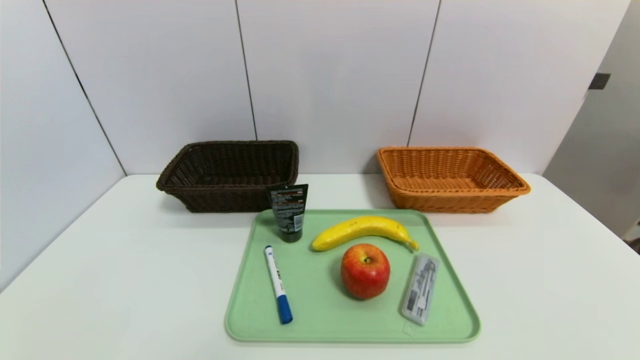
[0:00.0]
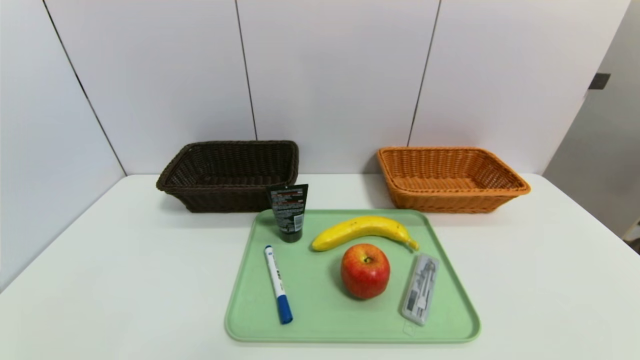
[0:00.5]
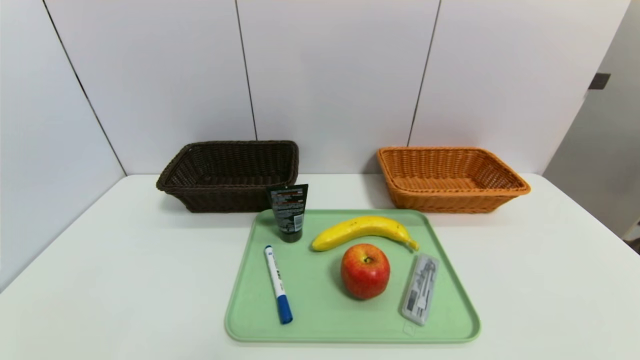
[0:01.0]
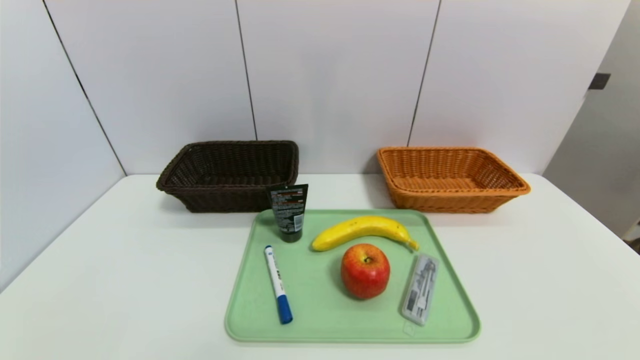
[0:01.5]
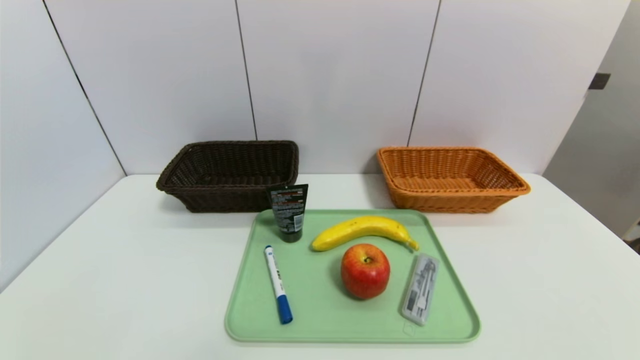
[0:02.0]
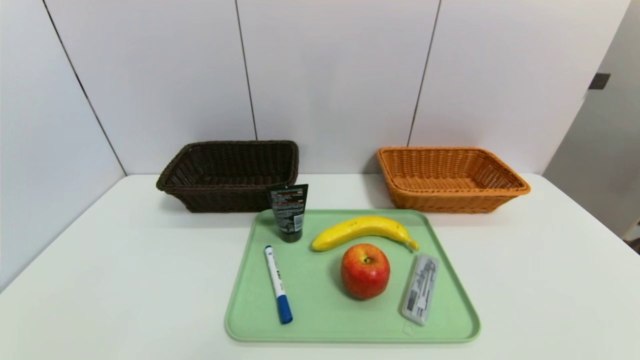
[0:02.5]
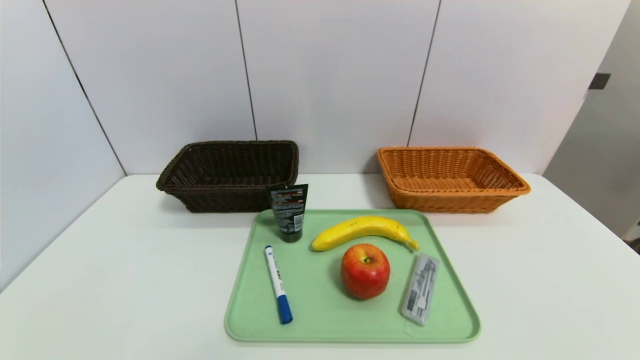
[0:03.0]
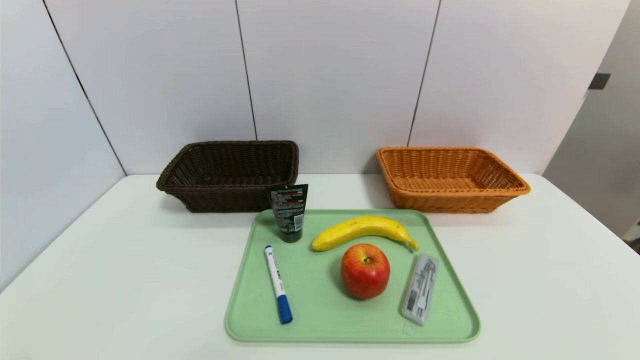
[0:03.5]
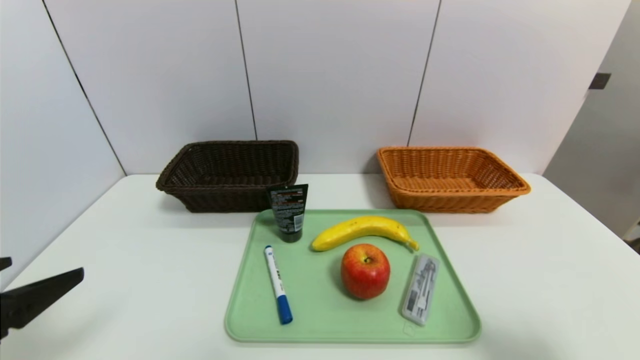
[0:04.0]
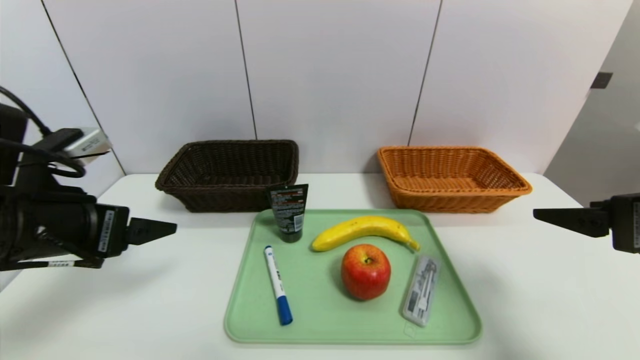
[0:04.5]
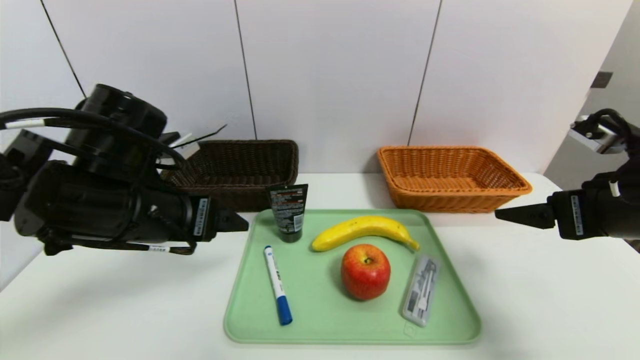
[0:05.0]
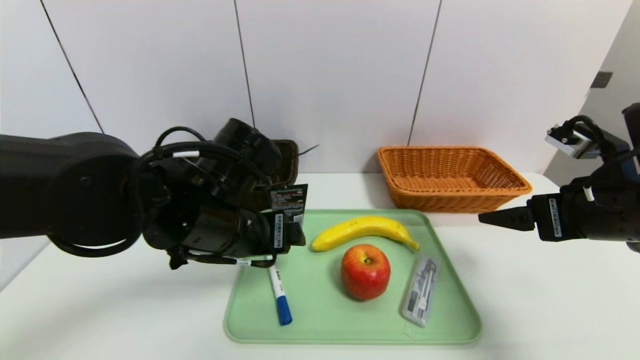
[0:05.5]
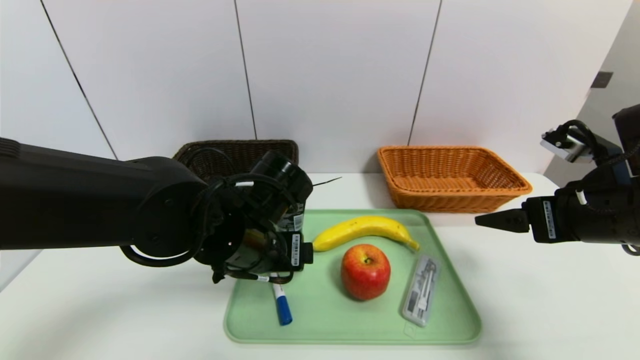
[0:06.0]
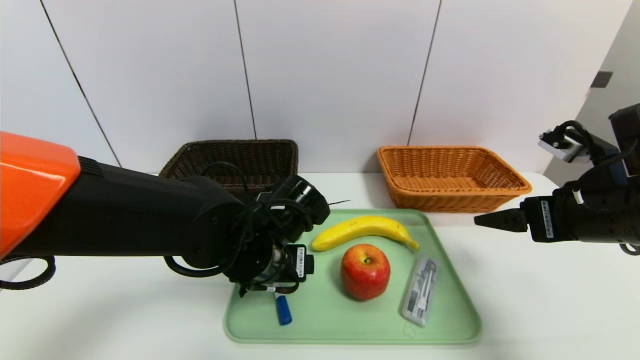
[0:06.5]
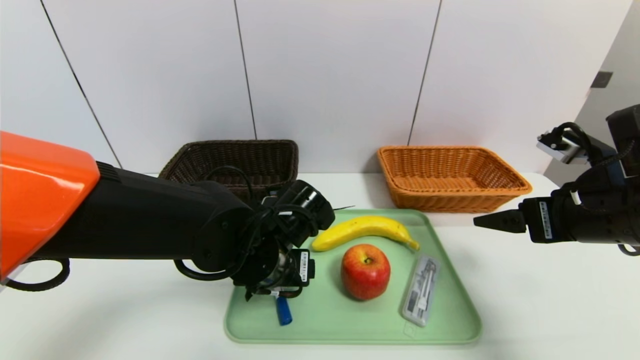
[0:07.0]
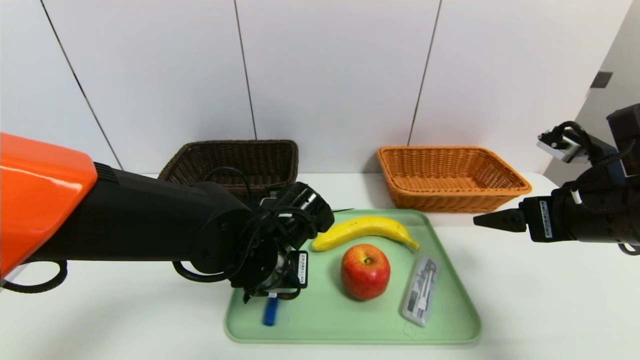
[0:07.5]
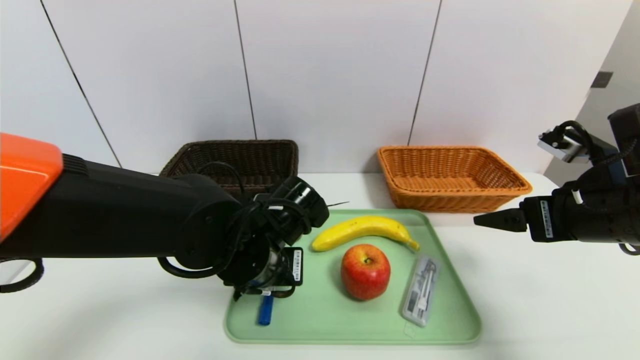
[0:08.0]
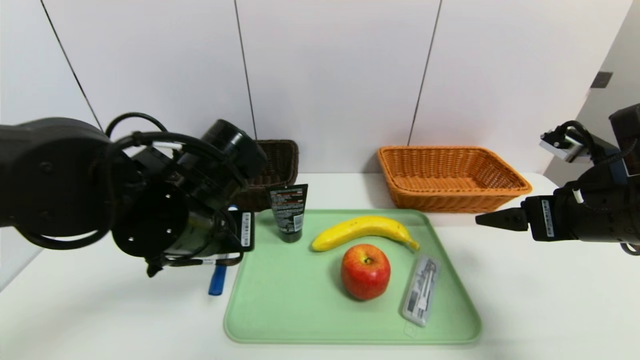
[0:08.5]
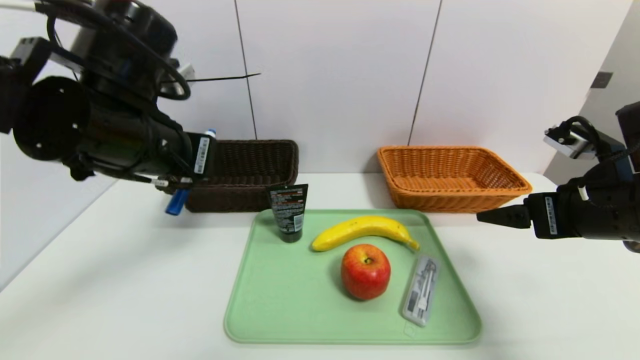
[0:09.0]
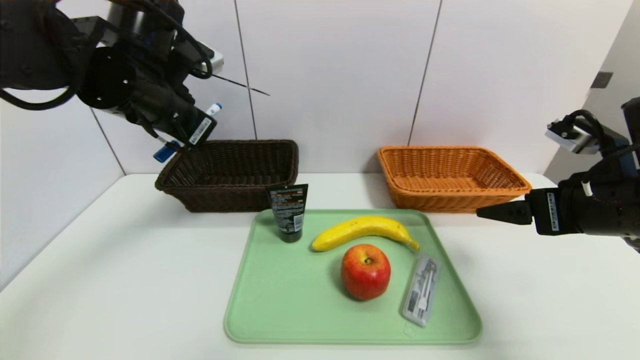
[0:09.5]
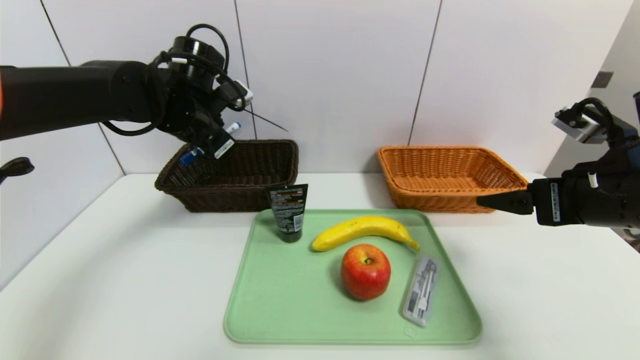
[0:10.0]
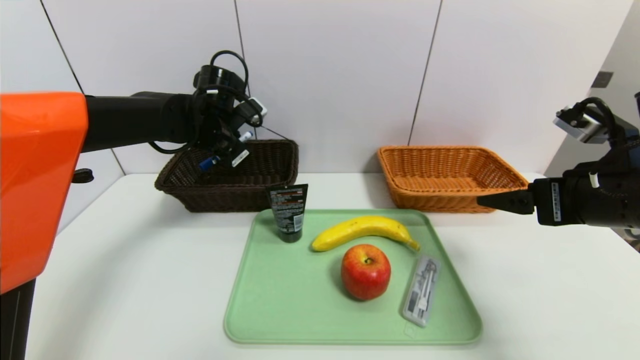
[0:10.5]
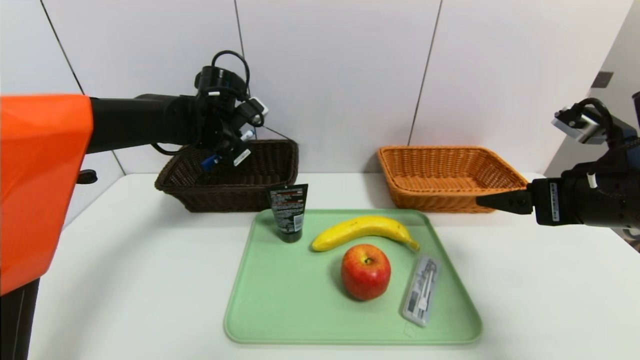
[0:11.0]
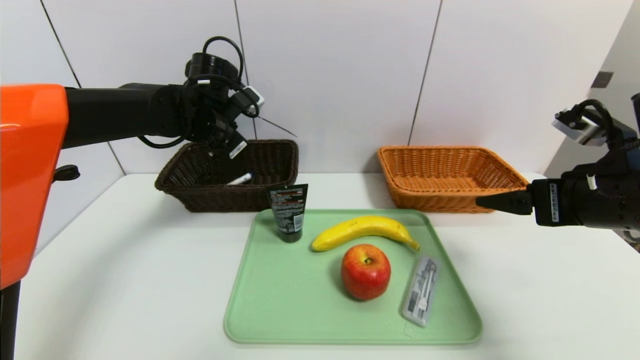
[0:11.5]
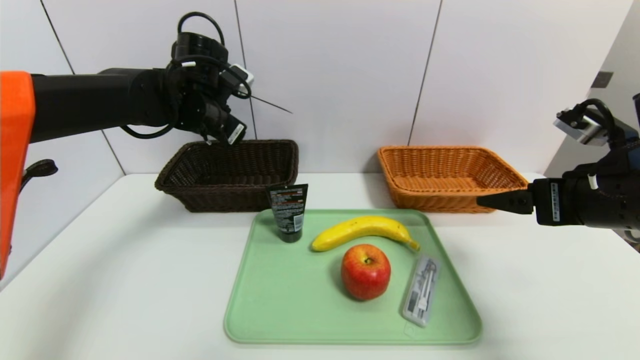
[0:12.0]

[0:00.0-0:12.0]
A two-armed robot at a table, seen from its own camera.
Task of the whole recording: place the food in the right basket with the right gripper, and place the non food items in the left basket with the left gripper.
Step, 0:00.0 to 0:11.5: Grasp the blue marker and put it in the left basket.
0:00.0 to 0:02.0: Both grippers stay about where they are.
0:02.0 to 0:04.0: Both grippers move upward and forward, some 20 cm.
0:04.0 to 0:06.0: The left gripper shifts some 25 cm to the right and forward, while the right gripper goes about 15 cm forward.
0:06.0 to 0:08.0: The left gripper closes.
0:08.0 to 0:10.0: The left gripper moves forward, upward and to the left, roughly 20 cm.
0:10.0 to 0:12.0: The left gripper opens up.

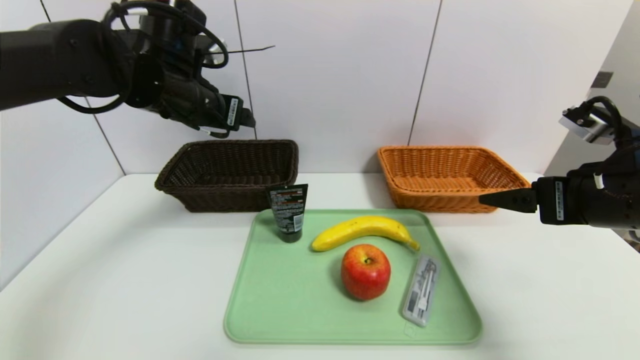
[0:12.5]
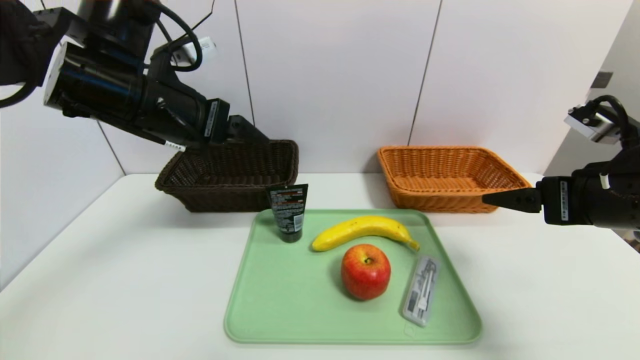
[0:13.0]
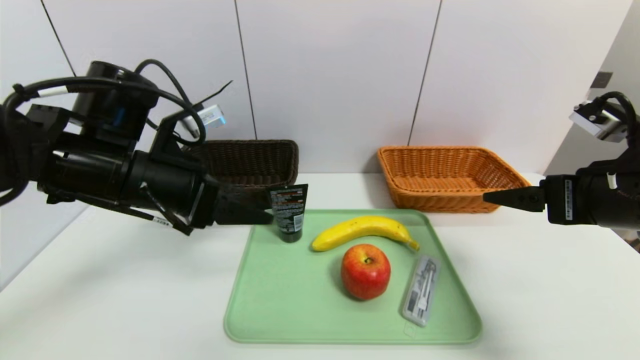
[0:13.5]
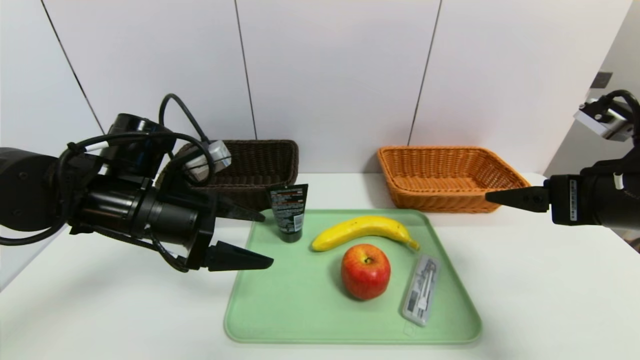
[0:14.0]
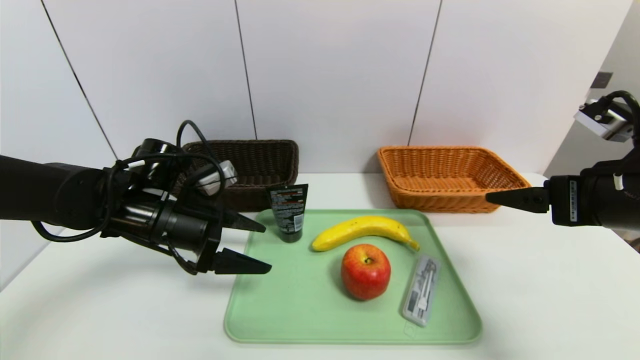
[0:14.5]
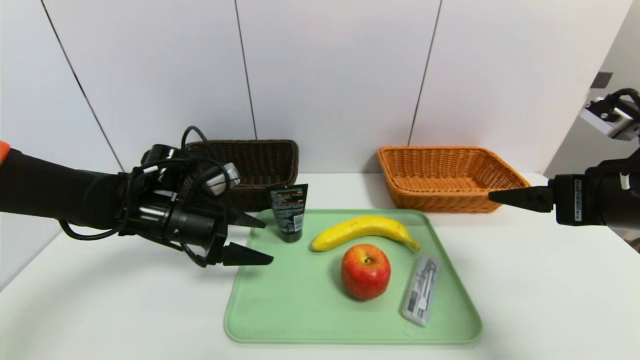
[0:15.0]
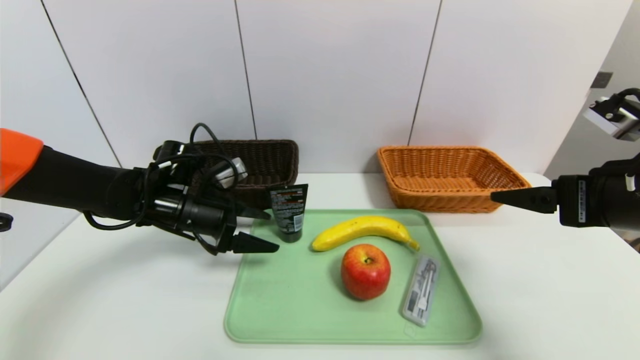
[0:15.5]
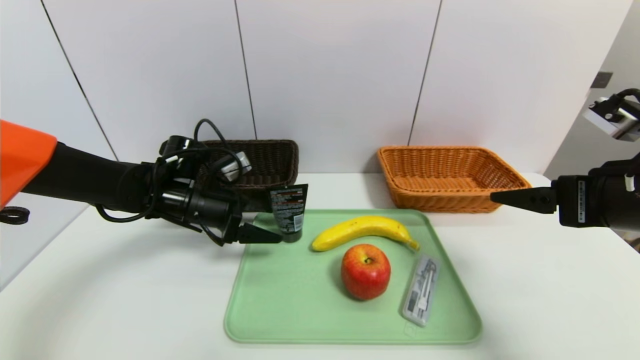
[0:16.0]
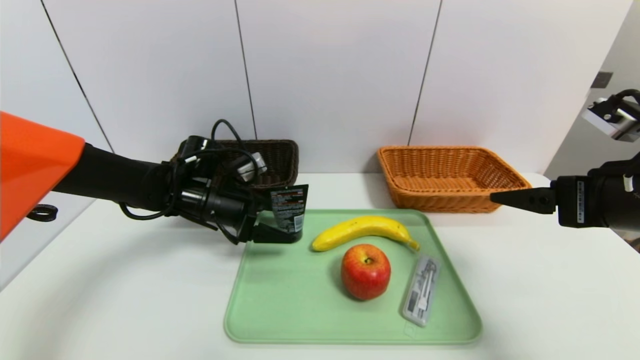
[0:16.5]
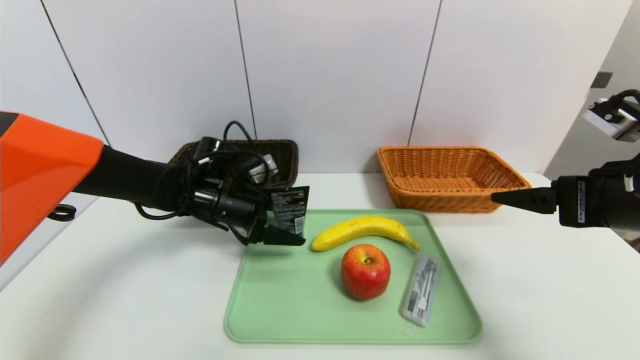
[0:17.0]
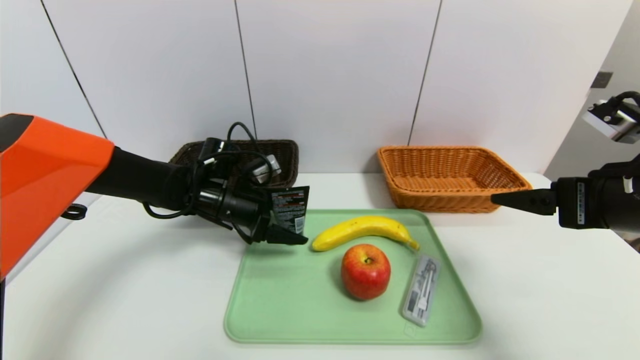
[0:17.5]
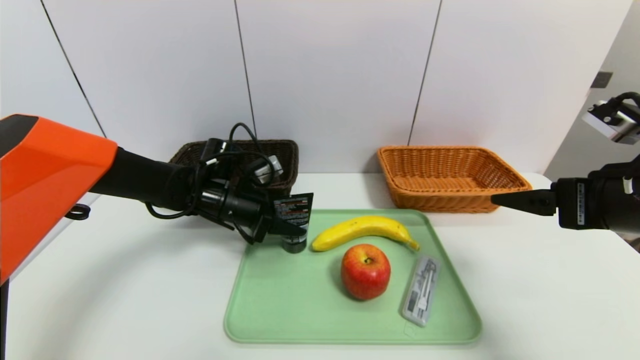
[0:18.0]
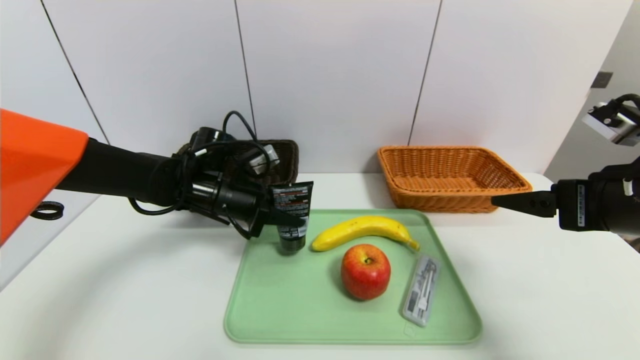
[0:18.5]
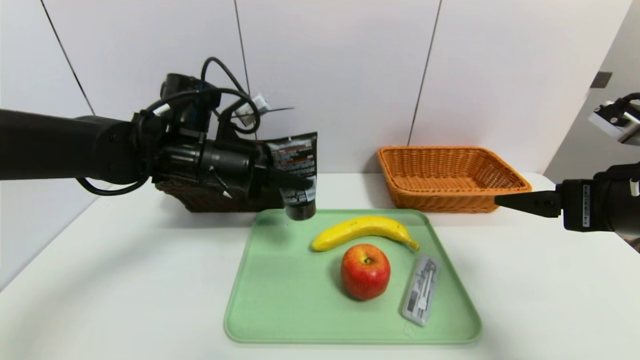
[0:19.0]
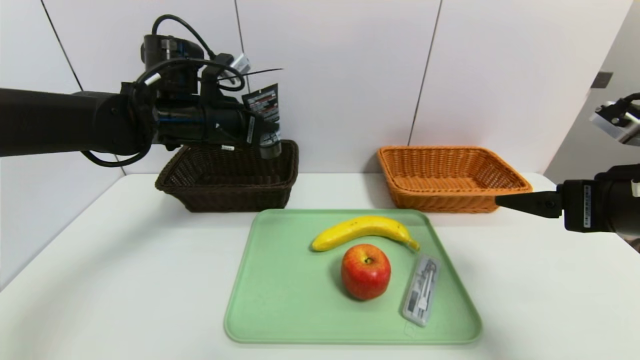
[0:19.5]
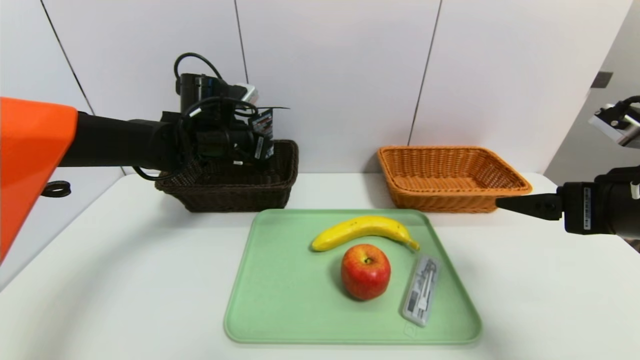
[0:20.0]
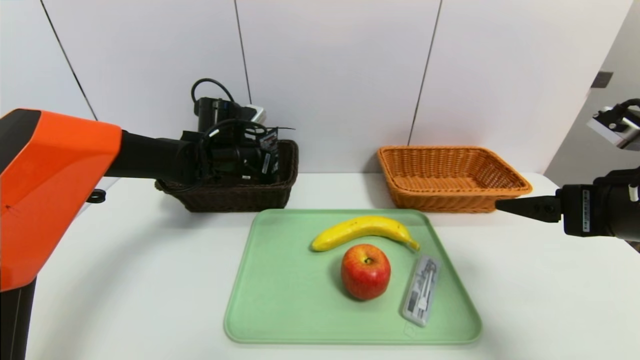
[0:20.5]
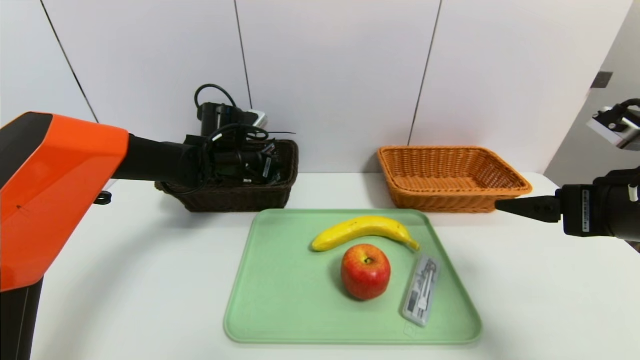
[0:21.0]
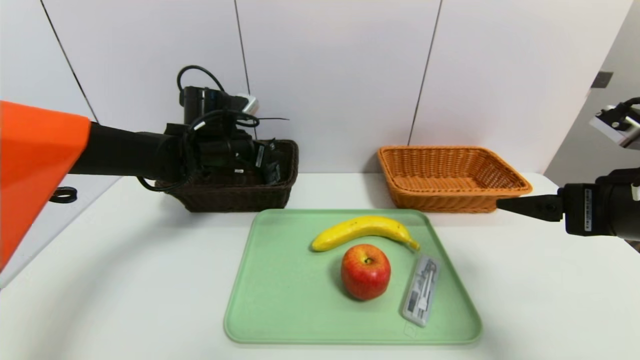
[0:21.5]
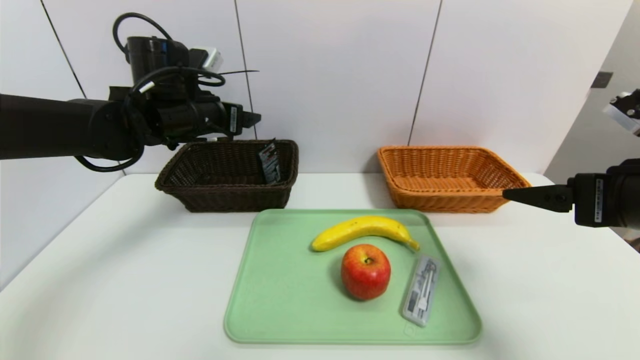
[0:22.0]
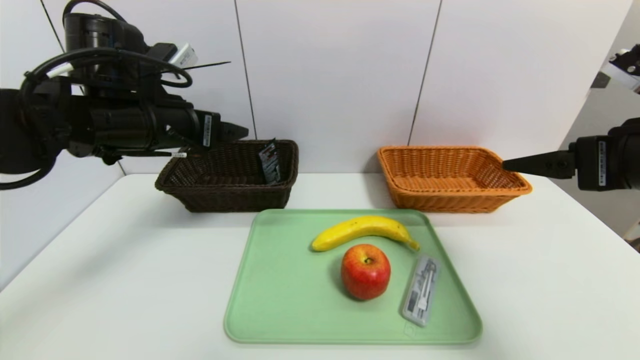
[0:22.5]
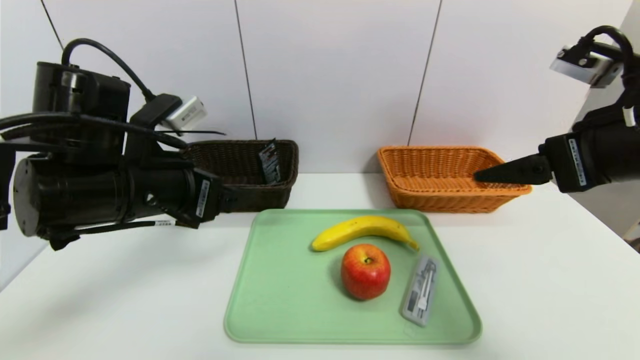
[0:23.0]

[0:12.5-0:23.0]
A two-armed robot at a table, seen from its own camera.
Task of the whole recording: place the food in the right basket with the right gripper, and place the non food items in the left basket with the left gripper.
Step, 0:12.5 to 0:21.5: Grasp the soft cleanser and put it in the left basket.
0:12.5 to 0:14.5: The left gripper shifts approximately 15 cm downward.
0:14.5 to 0:16.5: The left gripper heads forward, covering approximately 5 cm.
0:16.5 to 0:19.0: The left gripper heads upward, covering about 10 cm, and closes its fingers.
0:19.0 to 0:21.0: The left gripper is displaced forward and downward by some 10 cm, and opens.
0:21.0 to 0:23.0: The right gripper travels upward by some 5 cm. The left gripper is displaced backward by some 20 cm, and opens its fingers.
